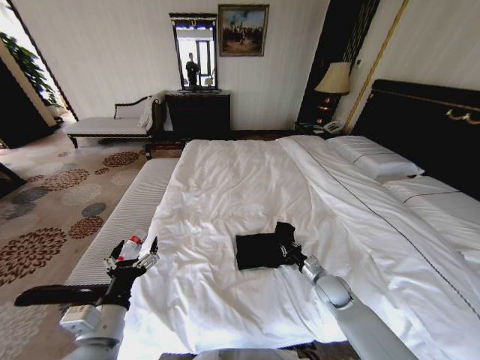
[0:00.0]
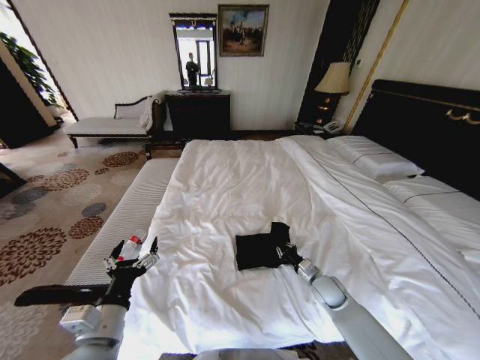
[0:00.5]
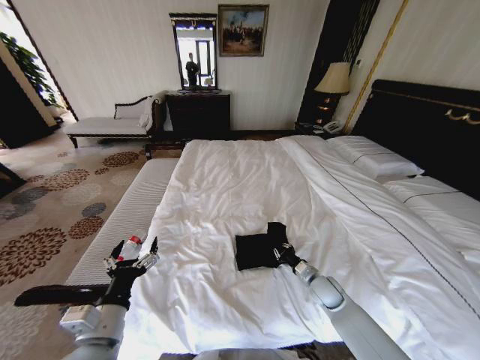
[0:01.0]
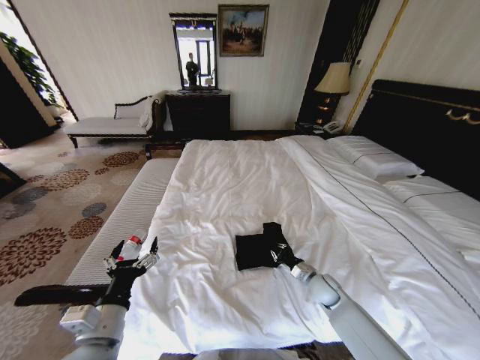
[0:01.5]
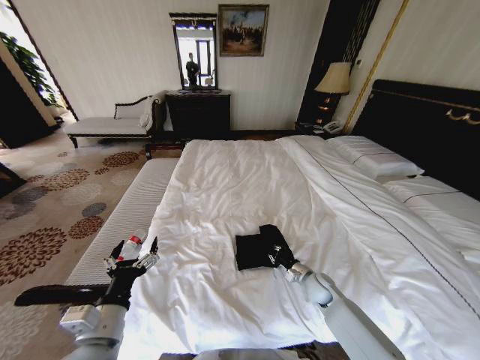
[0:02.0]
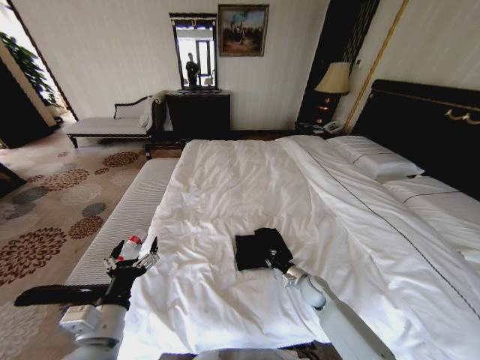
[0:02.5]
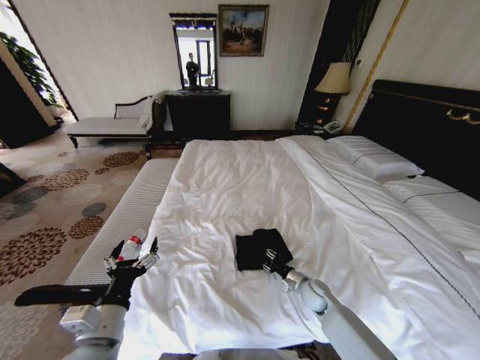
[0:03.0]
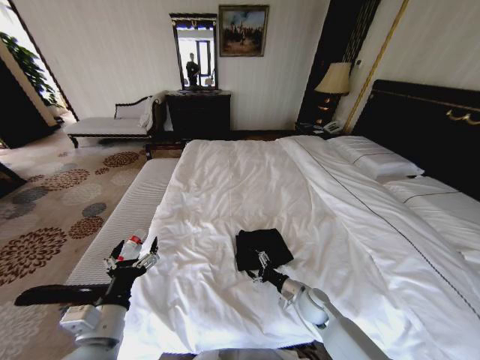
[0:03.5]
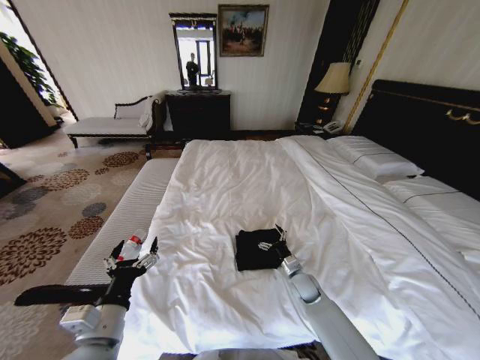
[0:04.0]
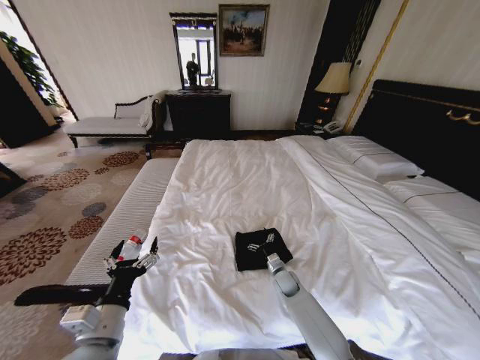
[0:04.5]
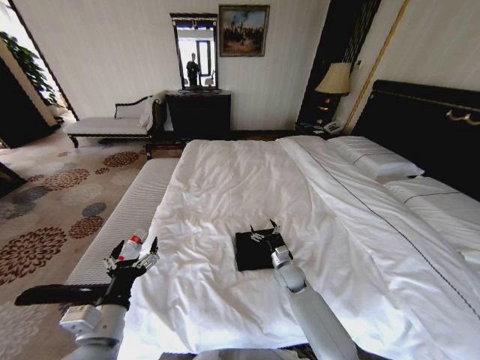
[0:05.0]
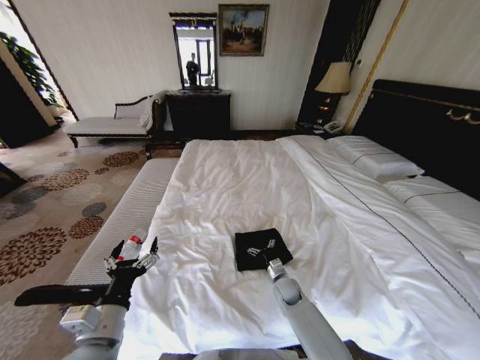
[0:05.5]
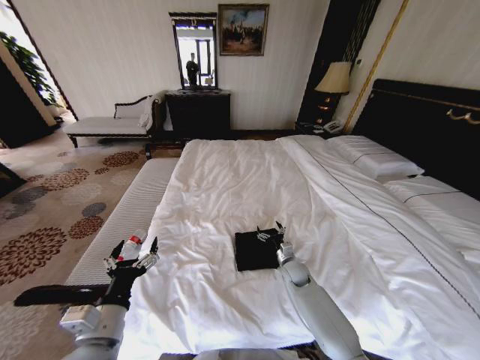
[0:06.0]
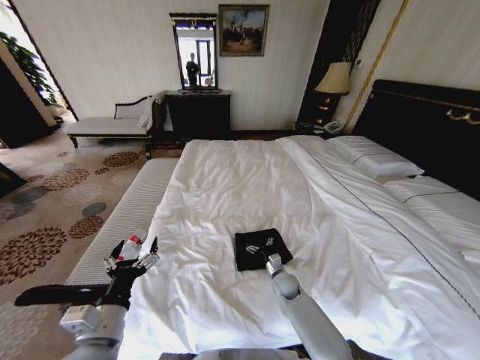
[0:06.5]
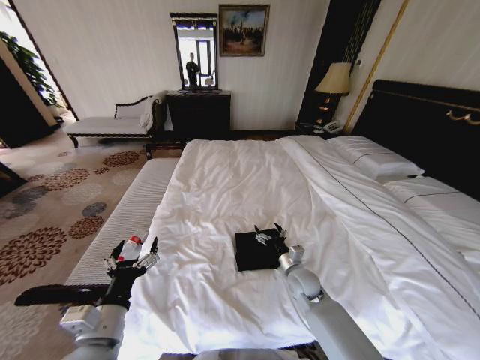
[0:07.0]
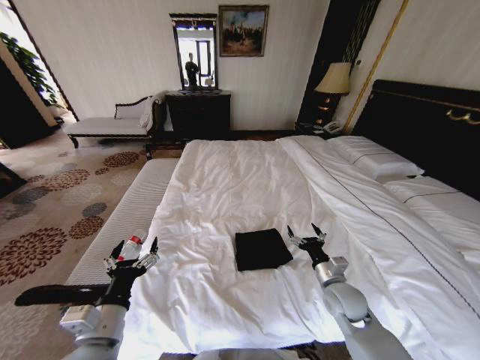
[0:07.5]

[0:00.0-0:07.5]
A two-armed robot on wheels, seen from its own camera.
Task of the whole recording: Fold the clothes on the bed.
0:02.0 to 0:04.0: The right gripper goes some 5 cm to the left, and opens.
0:04.0 to 0:05.5: The right gripper moves up and down over about 5 cm, changing direction 2 times.
0:05.5 to 0:07.5: The right gripper swings up and down, roughly 15 cm each way, with 2 reversals.
